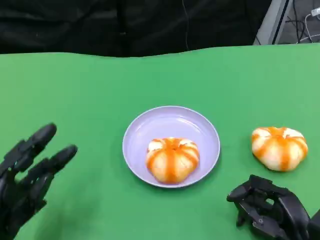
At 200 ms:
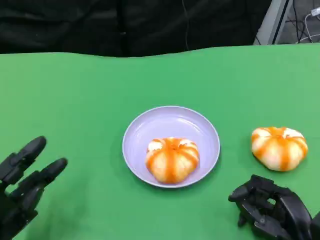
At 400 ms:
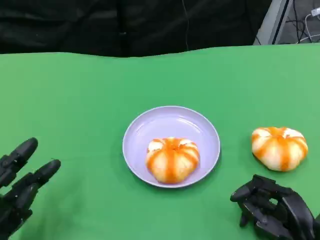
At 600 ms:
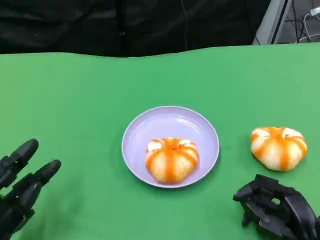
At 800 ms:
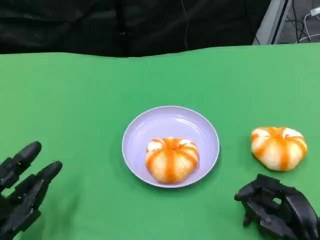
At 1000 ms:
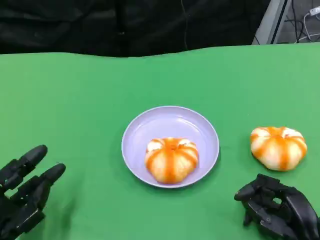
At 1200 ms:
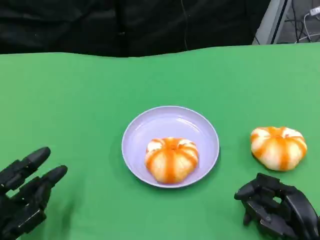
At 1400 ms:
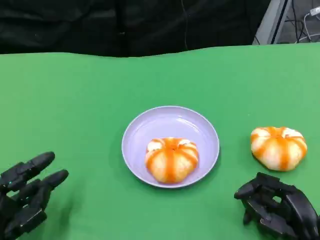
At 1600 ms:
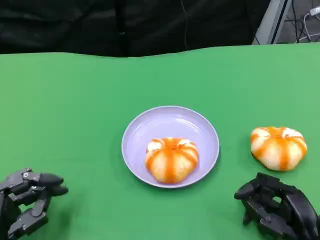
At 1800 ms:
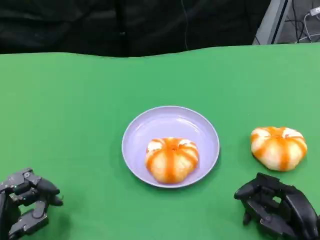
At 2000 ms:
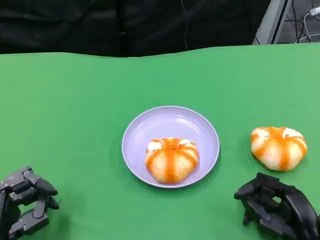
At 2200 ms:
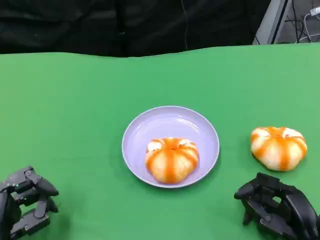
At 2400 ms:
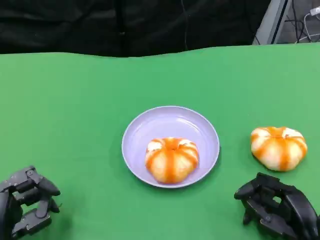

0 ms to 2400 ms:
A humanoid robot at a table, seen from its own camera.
Task of the whole recording: Grasp the bread from the table and place it into the plate.
0 ms to 1200 ms: There are only small adjustments of the hands.
1200 ms to 2400 ms: The hands move only a little.

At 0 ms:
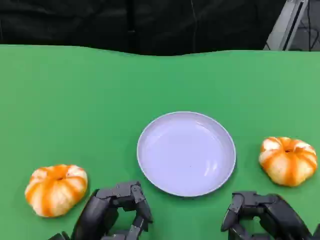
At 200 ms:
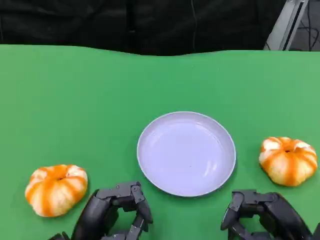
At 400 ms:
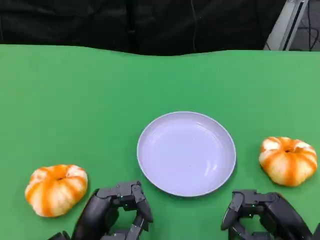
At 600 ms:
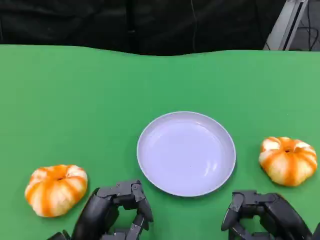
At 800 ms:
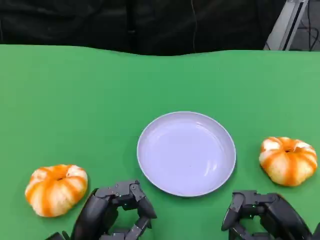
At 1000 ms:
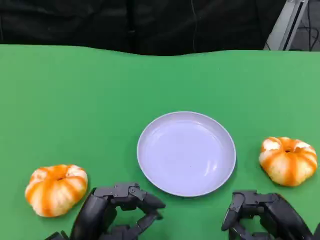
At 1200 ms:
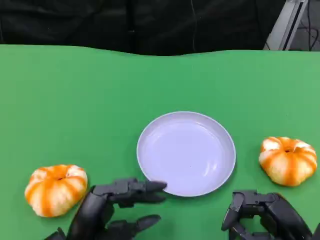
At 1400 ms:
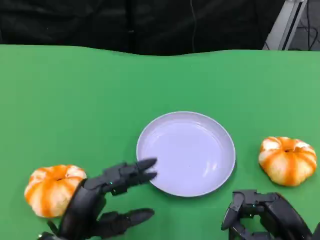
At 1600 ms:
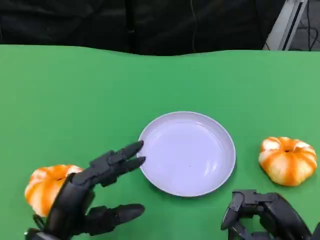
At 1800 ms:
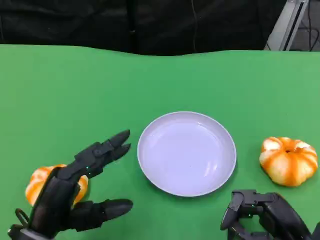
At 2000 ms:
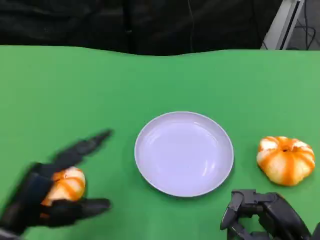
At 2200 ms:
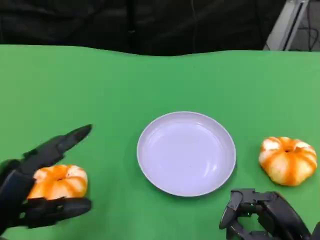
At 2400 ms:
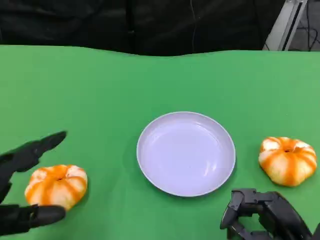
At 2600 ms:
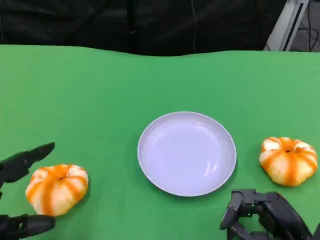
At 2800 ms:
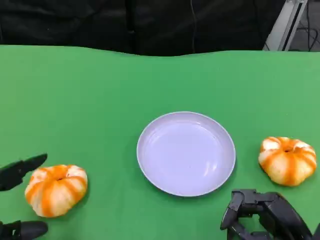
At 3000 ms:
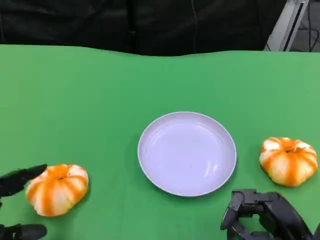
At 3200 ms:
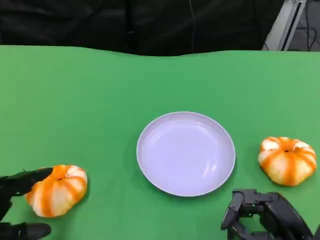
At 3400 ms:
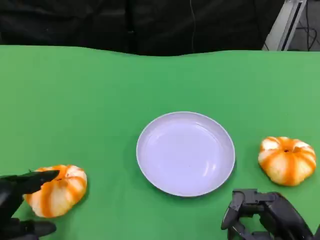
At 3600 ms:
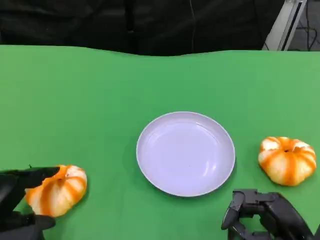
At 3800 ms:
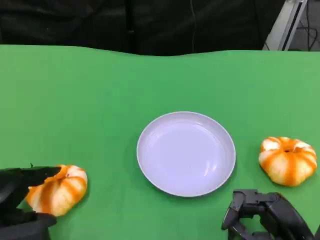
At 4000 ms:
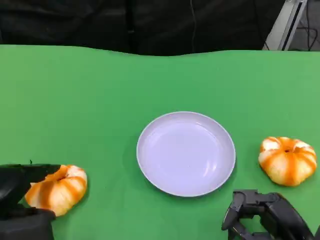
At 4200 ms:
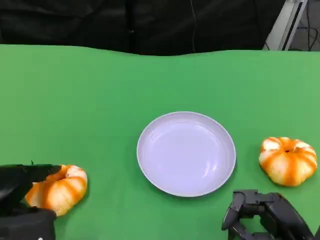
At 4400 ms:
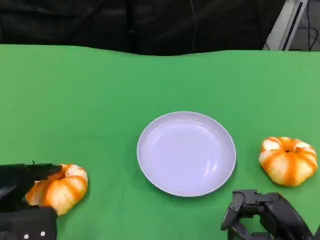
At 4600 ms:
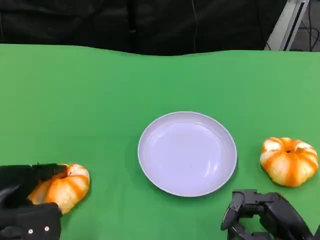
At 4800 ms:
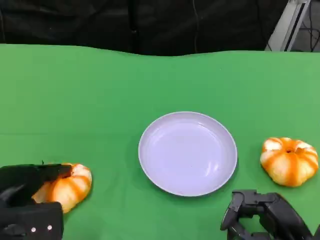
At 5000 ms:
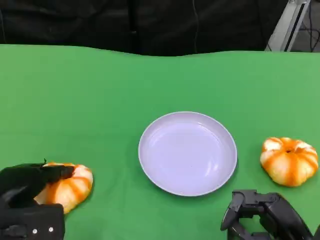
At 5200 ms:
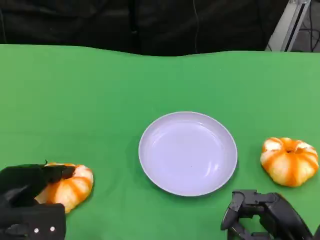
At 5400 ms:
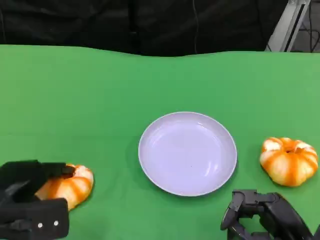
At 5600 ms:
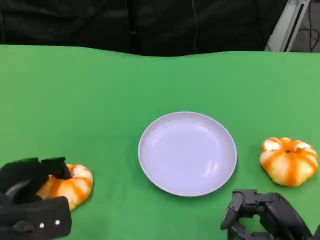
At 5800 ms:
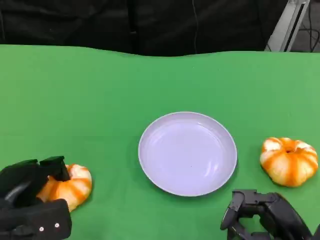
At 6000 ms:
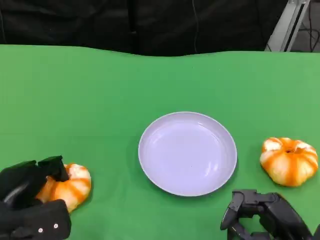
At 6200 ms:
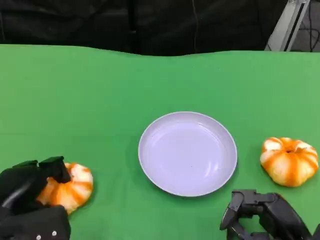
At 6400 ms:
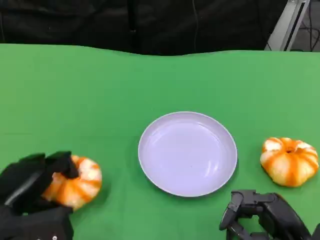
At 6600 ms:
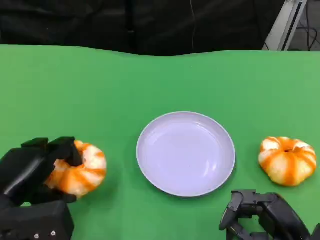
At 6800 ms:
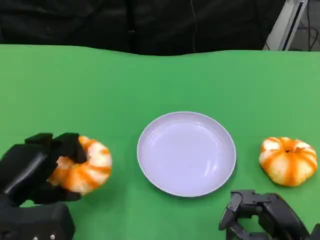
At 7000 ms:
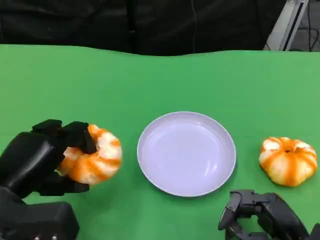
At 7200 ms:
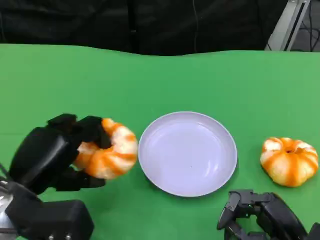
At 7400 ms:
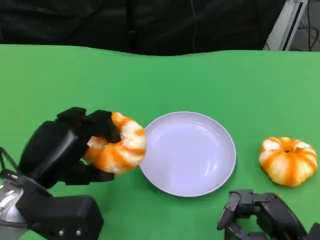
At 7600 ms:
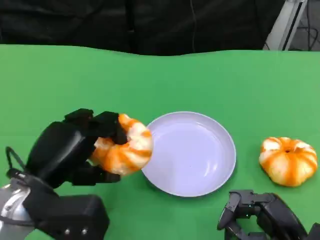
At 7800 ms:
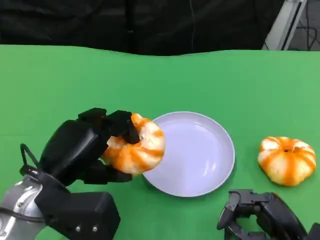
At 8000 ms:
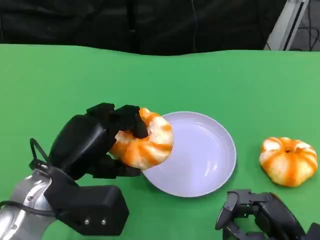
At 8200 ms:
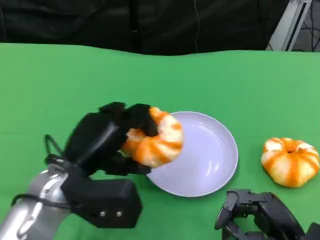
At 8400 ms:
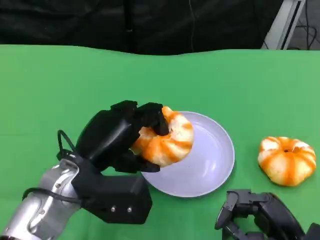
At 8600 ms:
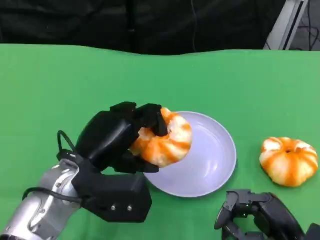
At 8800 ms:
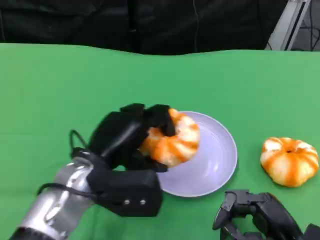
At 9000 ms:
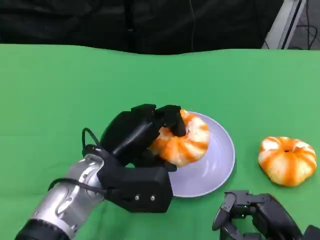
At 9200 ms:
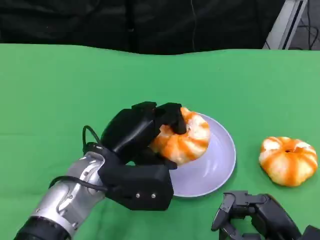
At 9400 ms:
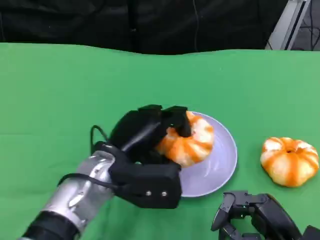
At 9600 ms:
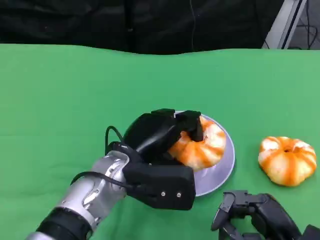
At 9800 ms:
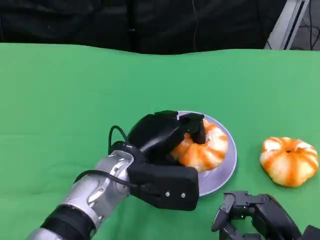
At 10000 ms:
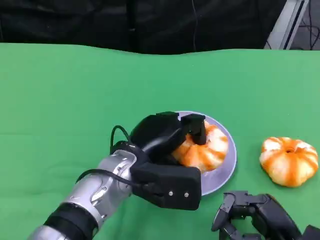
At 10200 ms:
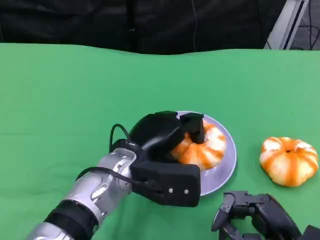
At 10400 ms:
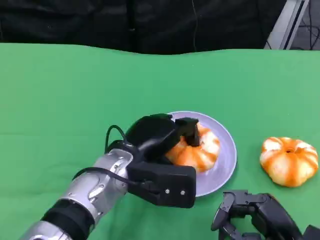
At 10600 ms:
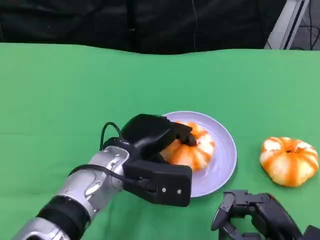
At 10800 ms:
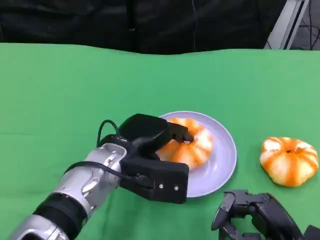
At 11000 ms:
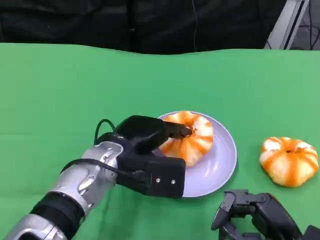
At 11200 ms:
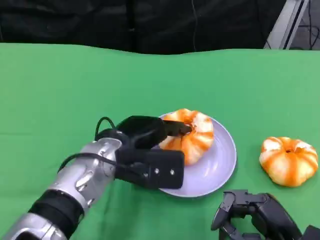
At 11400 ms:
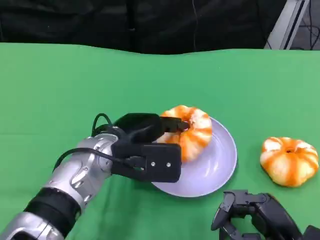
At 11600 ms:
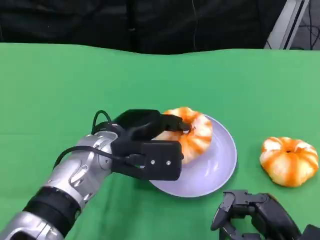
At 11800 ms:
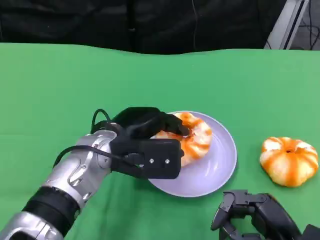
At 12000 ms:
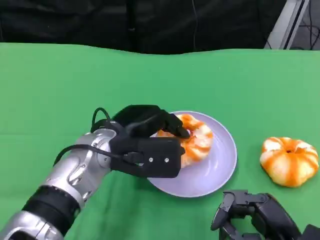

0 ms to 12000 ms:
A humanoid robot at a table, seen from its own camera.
Task of the whole recording: Grasp the bread from the table and place it into the plate.
0 ms to 1600 ms: The left hand ends up some 5 cm from where it was.
1600 ms to 3000 ms: The left hand heads to the left, covering some 10 cm.
3000 ms to 4400 ms: The left hand heads forward, covering roughly 10 cm.
4400 ms to 6000 ms: There are only small adjustments of the hands.
6000 ms to 7600 ms: The left hand moves upward and to the right, about 10 cm.
7600 ms to 9000 ms: The left hand is displaced to the right by about 10 cm.
9000 ms to 10400 ms: The hands make only small movements.
10400 ms to 12000 ms: The hands stay close to where they were, moving slightly.

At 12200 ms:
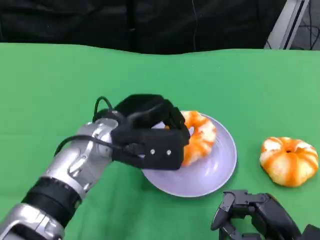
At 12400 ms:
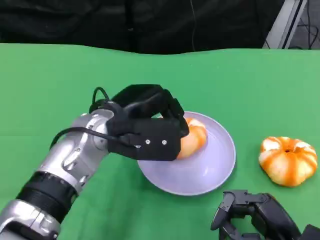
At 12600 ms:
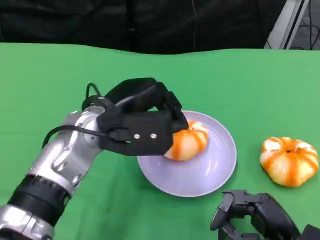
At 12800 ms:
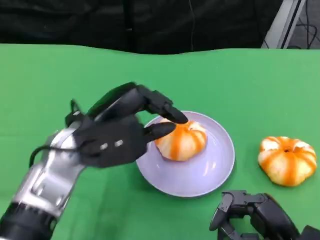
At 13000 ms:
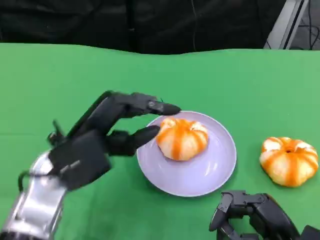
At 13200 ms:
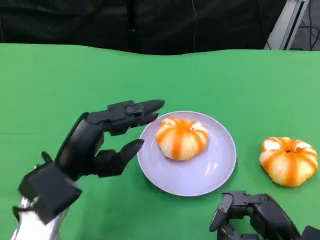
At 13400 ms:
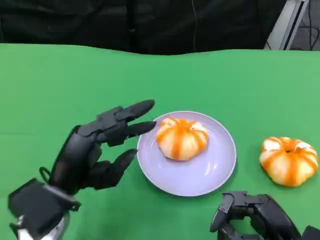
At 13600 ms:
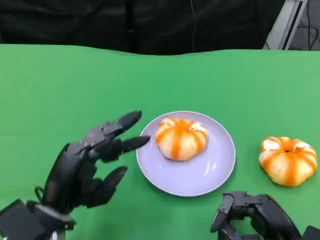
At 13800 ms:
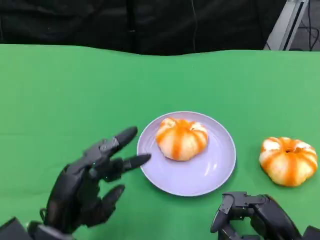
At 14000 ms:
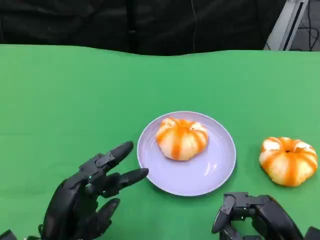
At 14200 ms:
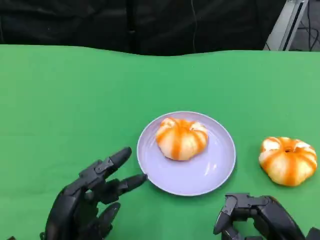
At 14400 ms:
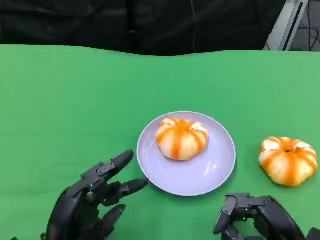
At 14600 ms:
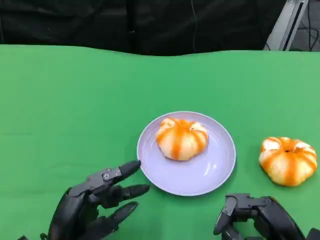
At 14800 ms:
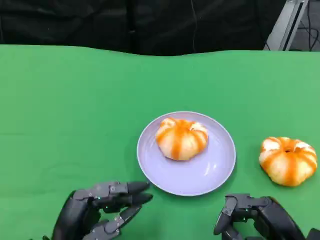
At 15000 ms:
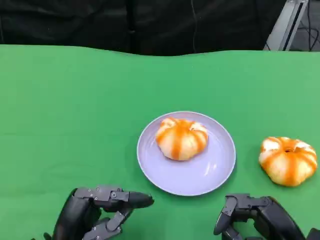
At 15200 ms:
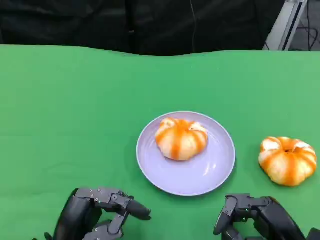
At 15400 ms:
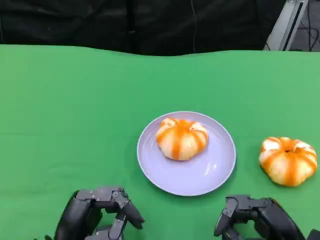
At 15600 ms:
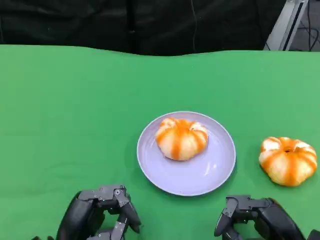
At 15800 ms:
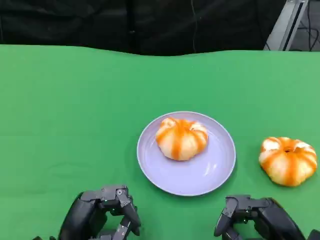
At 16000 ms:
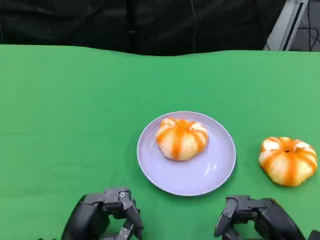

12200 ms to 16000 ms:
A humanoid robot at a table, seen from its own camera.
Task of the whole recording: Grasp the bread from the table and place it into the plate.
12200 ms to 13400 ms: The left hand shifts roughly 10 cm backward and to the left.
13400 ms to 14800 ms: The left hand goes roughly 10 cm downward and backward.
14800 ms to 16000 ms: Neither hand changes place.

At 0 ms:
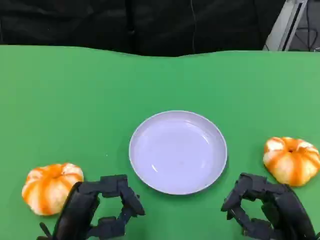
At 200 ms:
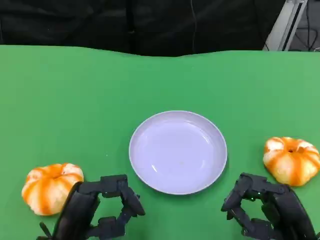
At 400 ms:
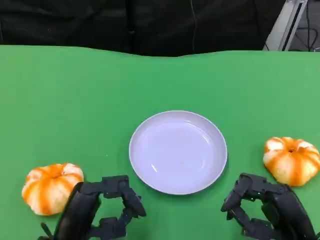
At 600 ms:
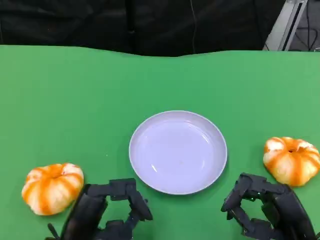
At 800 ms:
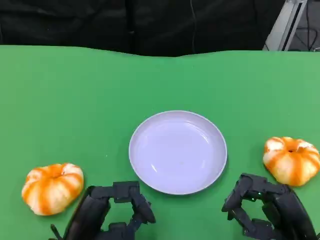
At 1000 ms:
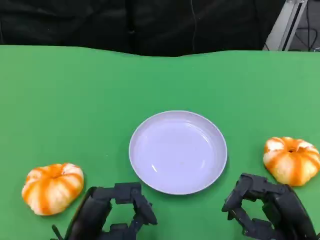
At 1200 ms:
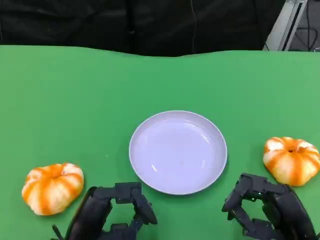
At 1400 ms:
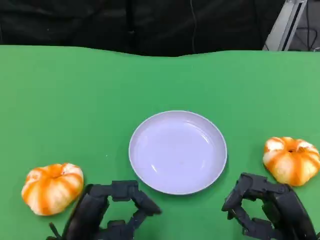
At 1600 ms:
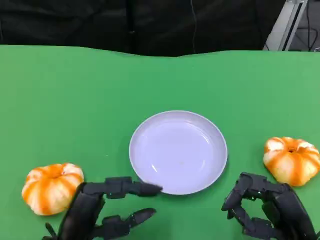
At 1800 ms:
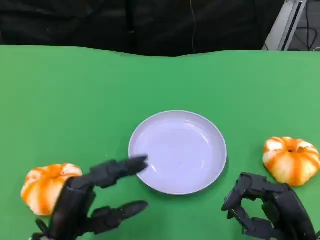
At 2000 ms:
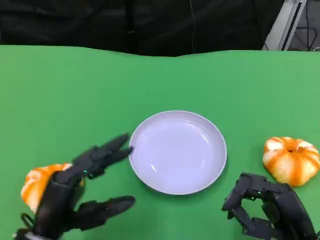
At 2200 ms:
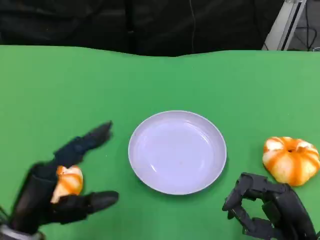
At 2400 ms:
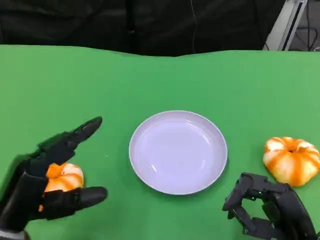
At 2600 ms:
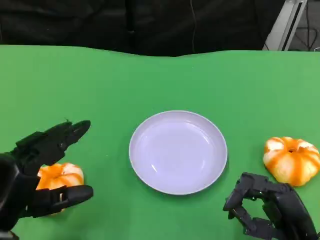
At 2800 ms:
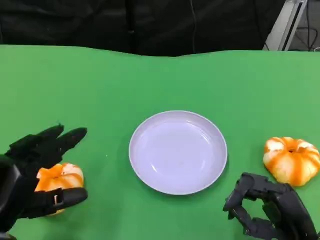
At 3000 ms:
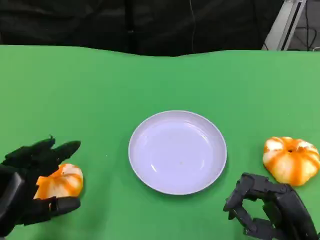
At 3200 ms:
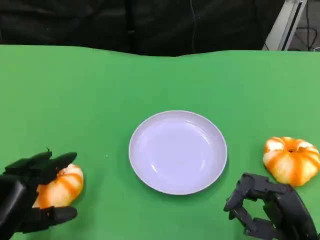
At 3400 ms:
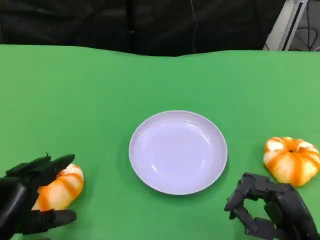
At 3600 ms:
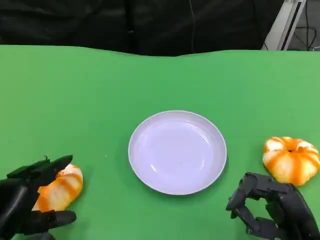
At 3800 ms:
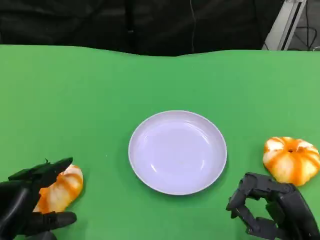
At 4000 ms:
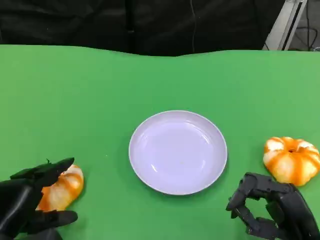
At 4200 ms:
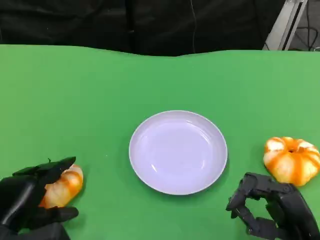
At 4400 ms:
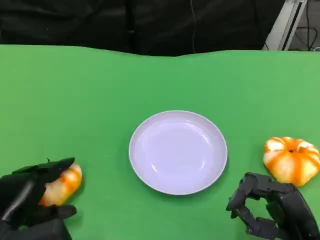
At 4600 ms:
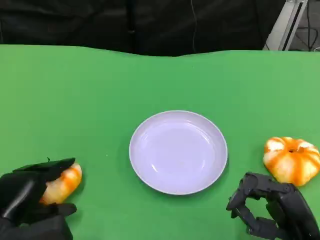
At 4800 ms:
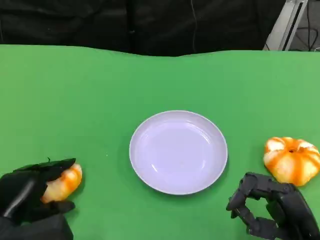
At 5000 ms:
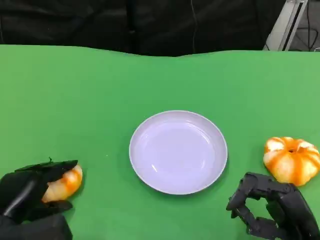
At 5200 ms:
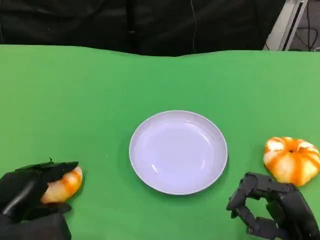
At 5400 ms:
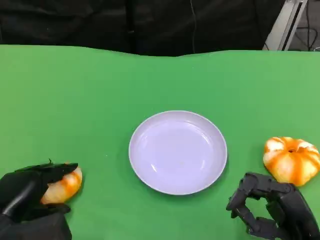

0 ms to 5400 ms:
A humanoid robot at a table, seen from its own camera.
Task of the whole recording: Grasp the bread from the table and place it into the plate.
0 ms to 1400 ms: Neither hand changes place.
1400 ms to 2800 ms: The left hand travels to the left by some 10 cm.
2800 ms to 4000 ms: The left hand shifts some 5 cm downward.
4000 ms to 5400 ms: The hands move only a little.
